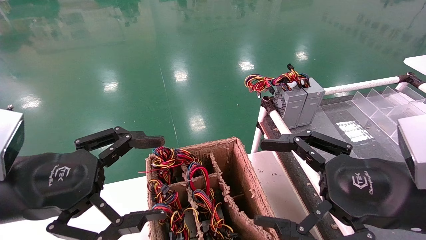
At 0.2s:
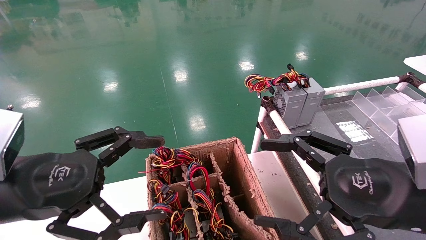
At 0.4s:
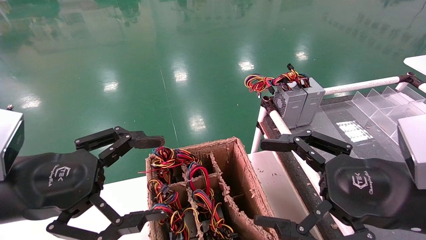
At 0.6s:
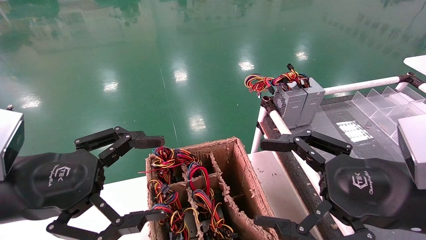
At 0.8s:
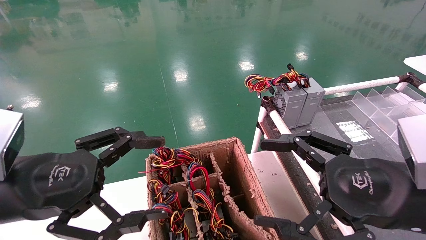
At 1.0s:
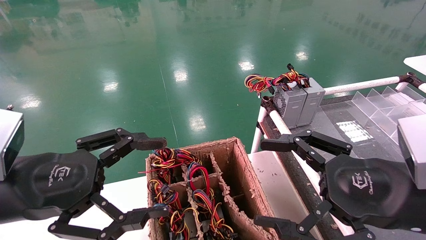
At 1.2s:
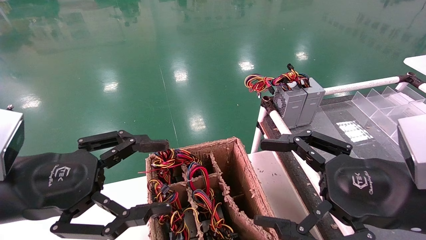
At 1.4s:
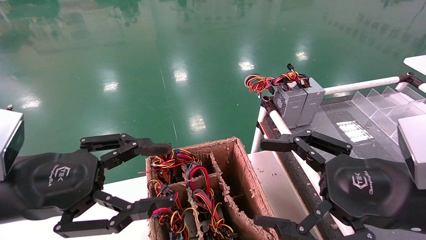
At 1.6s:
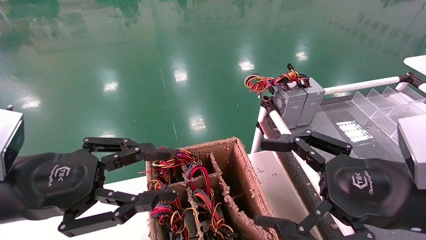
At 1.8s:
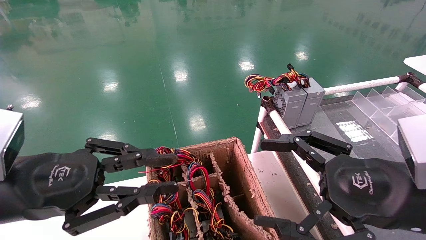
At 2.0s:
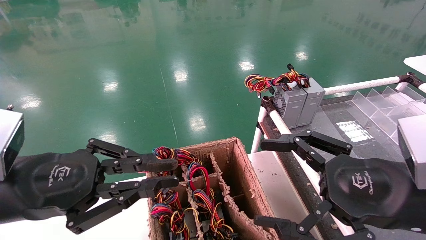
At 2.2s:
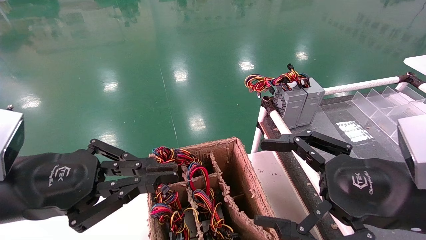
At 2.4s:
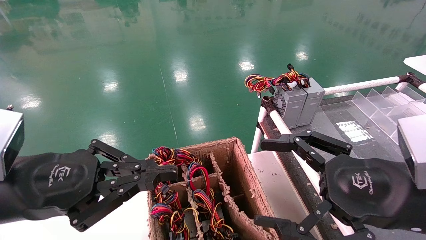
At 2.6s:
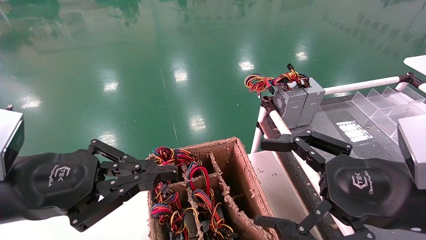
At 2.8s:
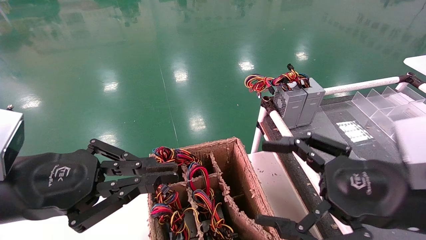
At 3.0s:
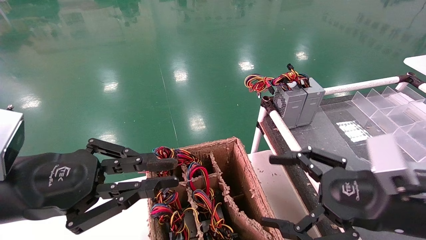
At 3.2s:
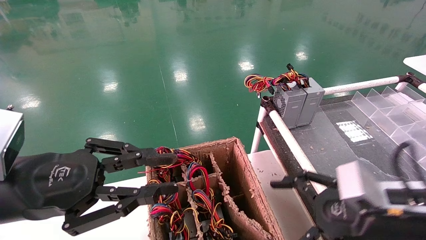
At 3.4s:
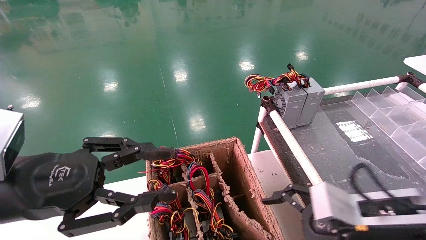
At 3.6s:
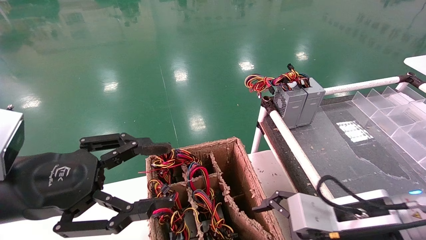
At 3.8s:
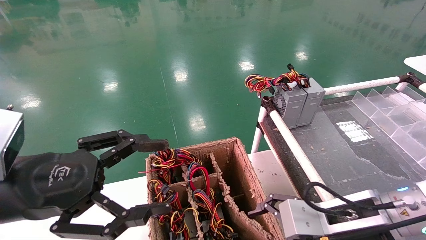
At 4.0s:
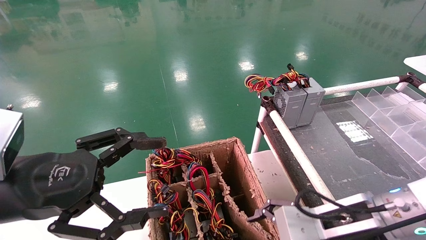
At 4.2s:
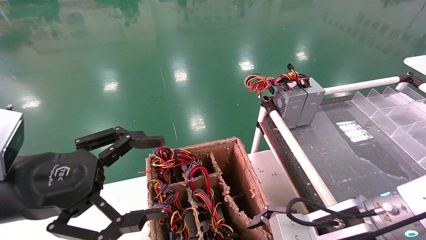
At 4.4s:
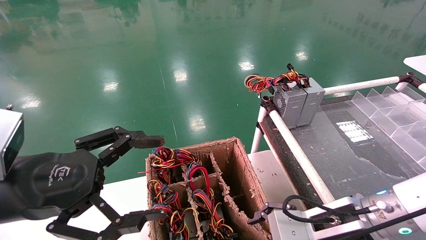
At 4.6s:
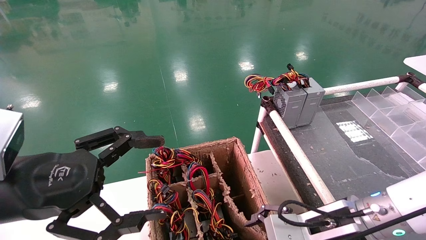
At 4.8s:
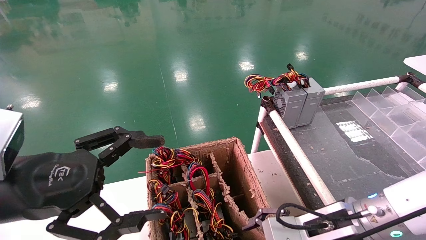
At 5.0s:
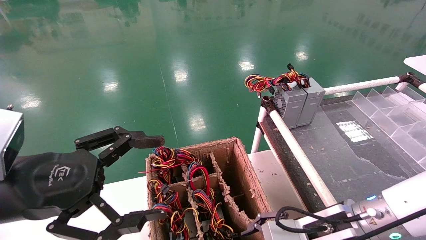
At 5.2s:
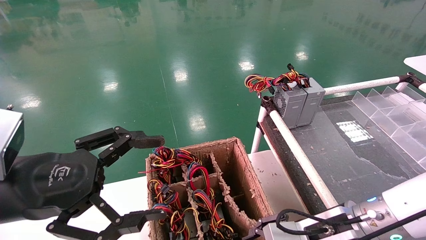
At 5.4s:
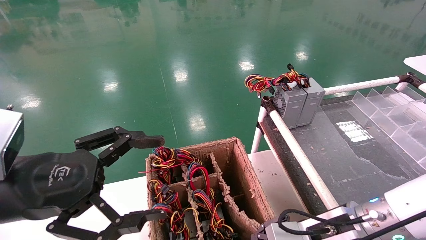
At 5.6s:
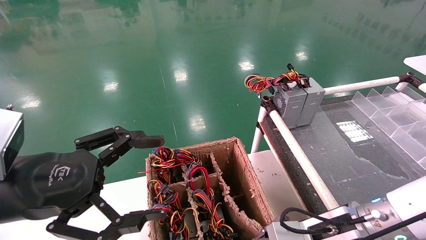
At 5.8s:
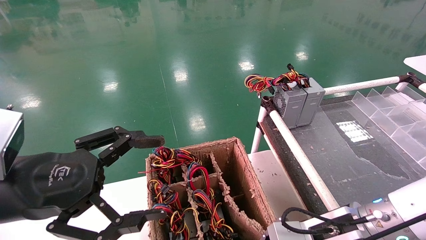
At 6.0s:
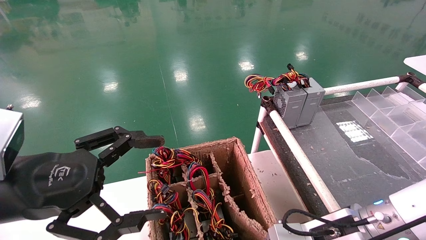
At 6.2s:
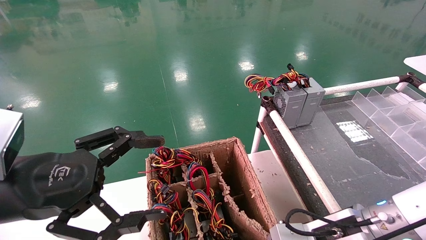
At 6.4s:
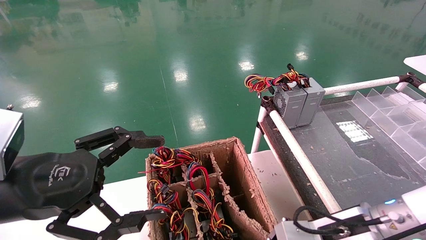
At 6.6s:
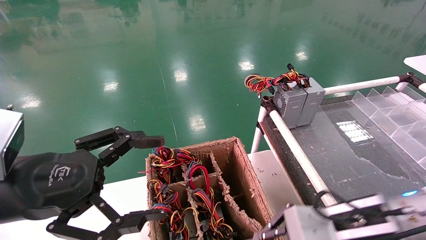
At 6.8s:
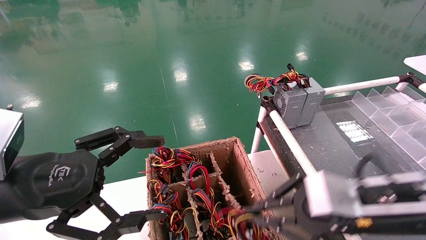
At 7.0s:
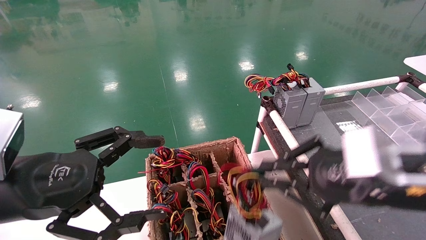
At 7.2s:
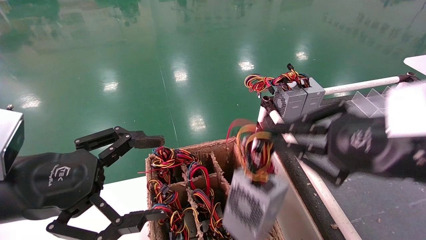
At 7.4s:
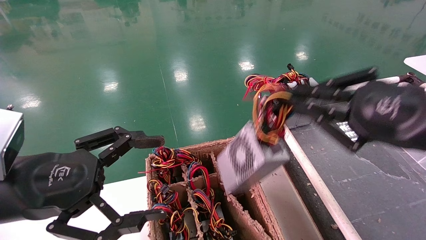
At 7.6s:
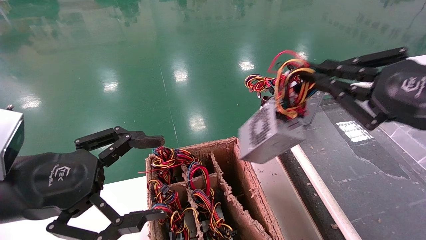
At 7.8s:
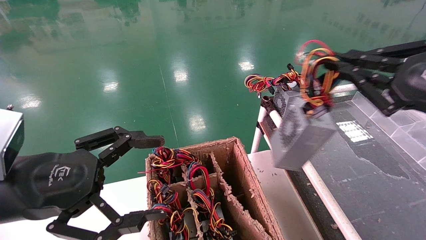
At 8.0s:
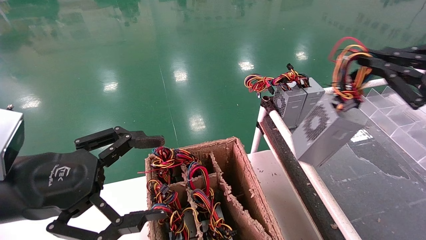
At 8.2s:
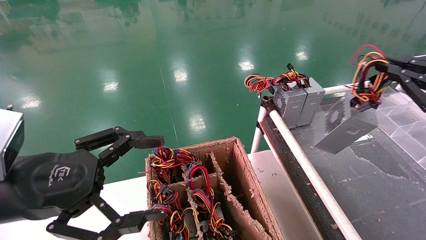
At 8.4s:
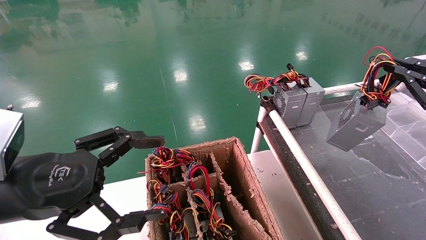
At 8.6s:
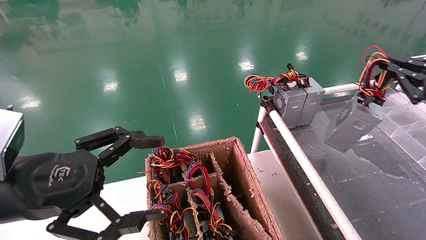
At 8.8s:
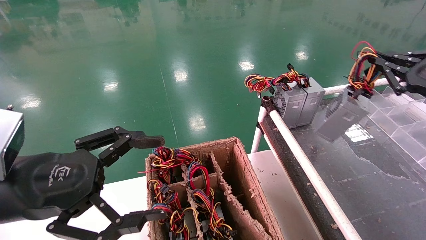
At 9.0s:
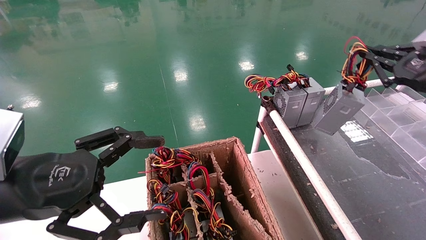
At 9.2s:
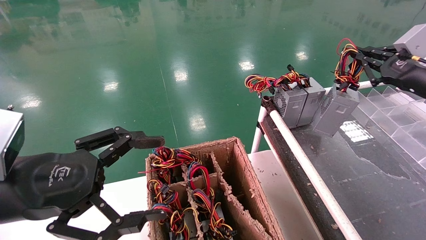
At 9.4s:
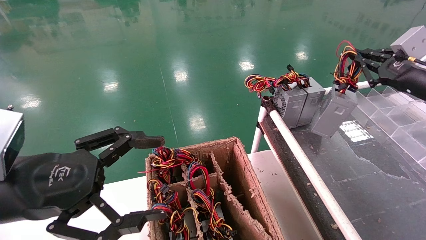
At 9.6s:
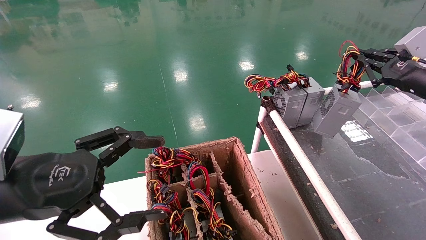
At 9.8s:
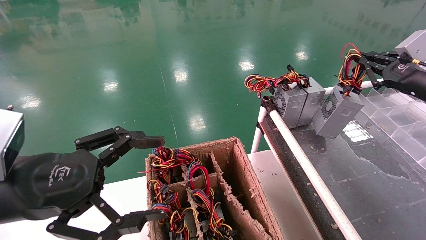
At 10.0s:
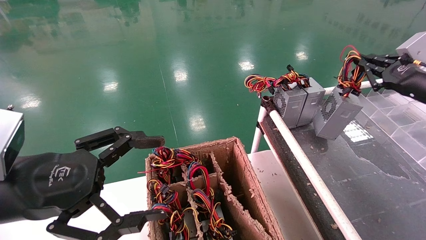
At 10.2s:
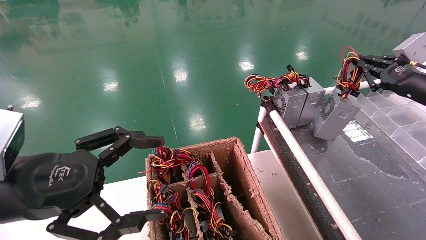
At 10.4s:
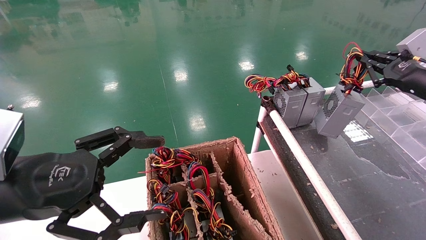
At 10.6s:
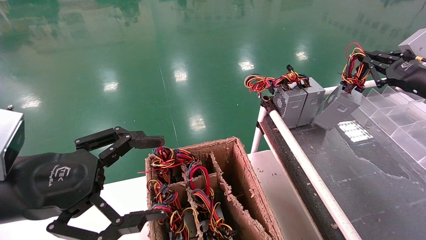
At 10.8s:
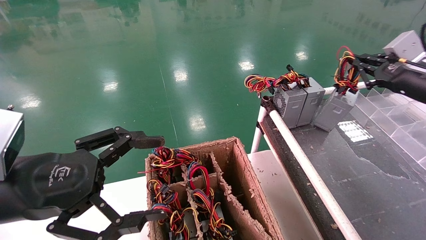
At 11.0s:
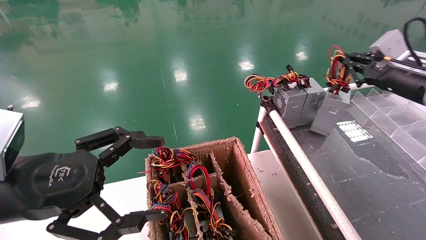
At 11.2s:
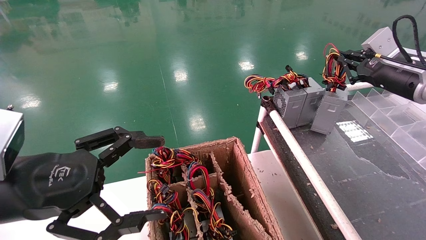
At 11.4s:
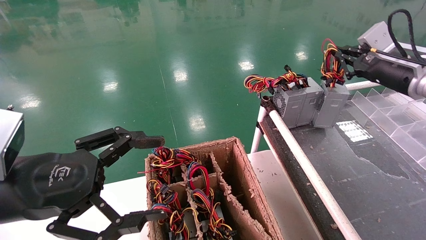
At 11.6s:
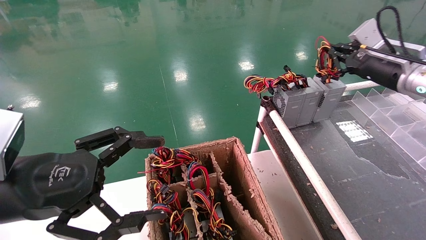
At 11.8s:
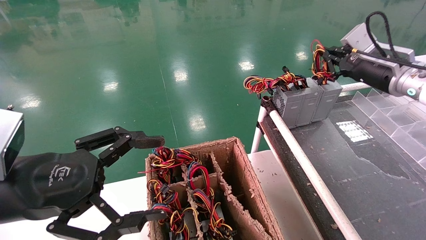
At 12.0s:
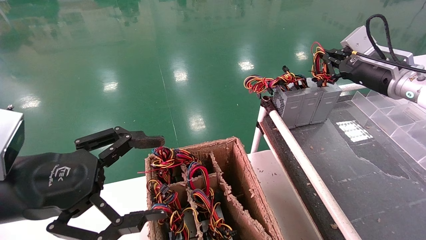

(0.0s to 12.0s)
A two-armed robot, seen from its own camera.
Step, 2.2s - 6.0s: Grab and lift the power supply from the large box.
0.0s - 1.6s: The left gripper closes its fingers.
1.6s - 3.0s: The left gripper closes up.
3.0s - 4.4s: The right gripper moves to the left and downward, some 10 cm; the left gripper opens its fingers.
4.4s - 6.0s: The right gripper closes up.
6.0s - 7.6s: The right gripper shifts some 20 cm upward and to the right.
7.6s - 9.0s: The right gripper travels forward and to the right by about 20 cm.
9.0s - 10.4s: The grippers move only a little.
10.4s - 12.0s: The right gripper shifts roughly 10 cm to the left and forward.

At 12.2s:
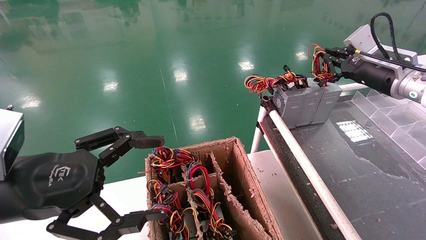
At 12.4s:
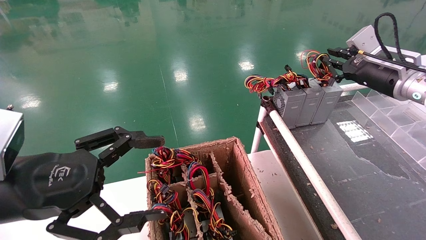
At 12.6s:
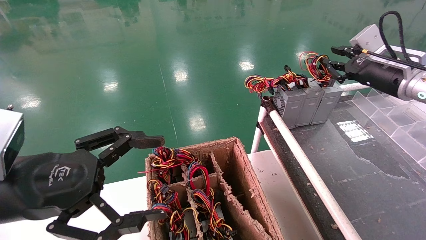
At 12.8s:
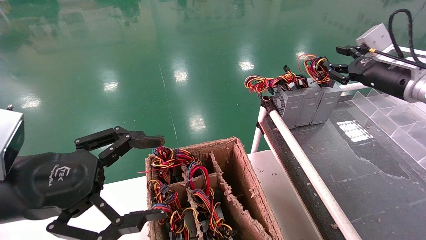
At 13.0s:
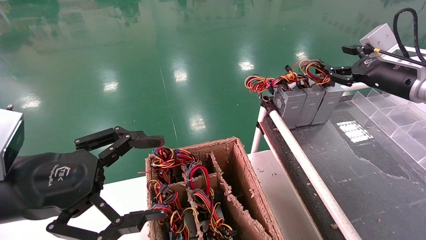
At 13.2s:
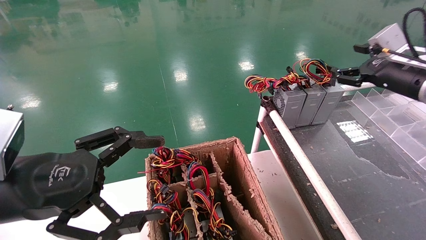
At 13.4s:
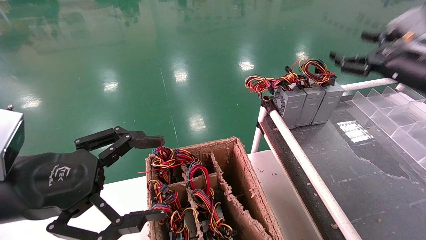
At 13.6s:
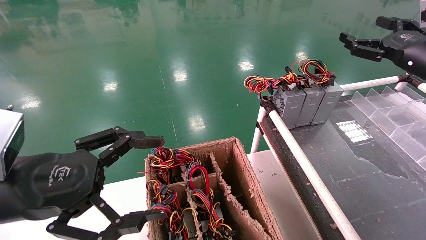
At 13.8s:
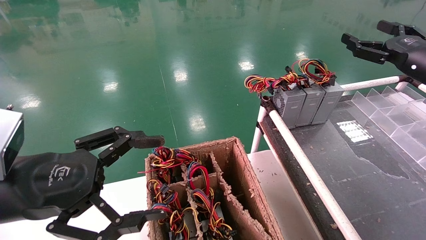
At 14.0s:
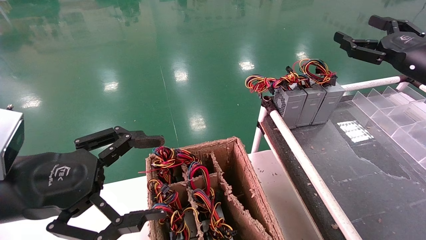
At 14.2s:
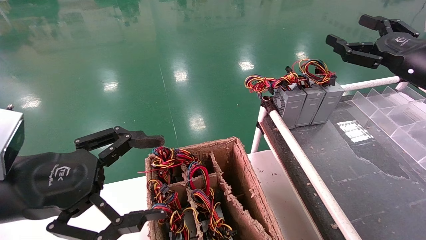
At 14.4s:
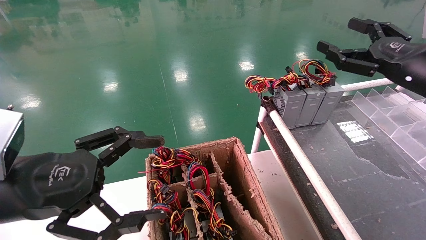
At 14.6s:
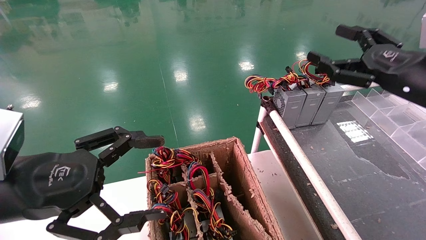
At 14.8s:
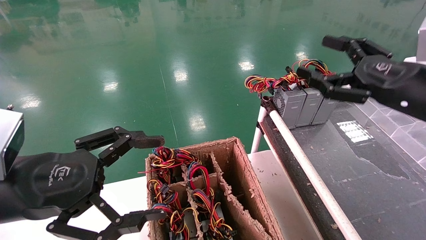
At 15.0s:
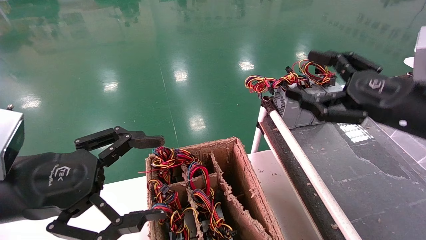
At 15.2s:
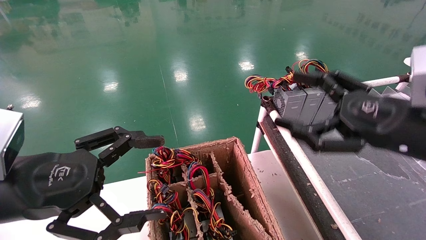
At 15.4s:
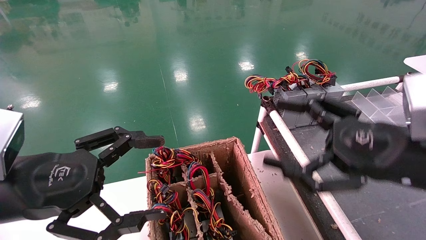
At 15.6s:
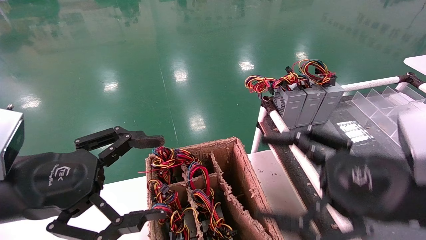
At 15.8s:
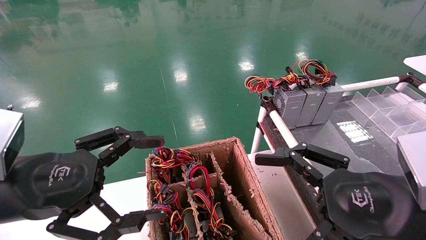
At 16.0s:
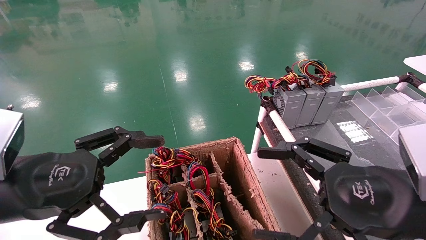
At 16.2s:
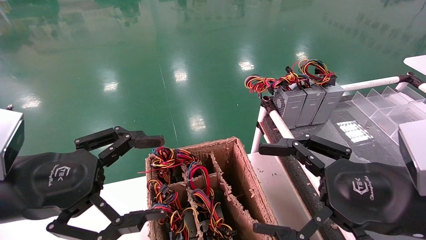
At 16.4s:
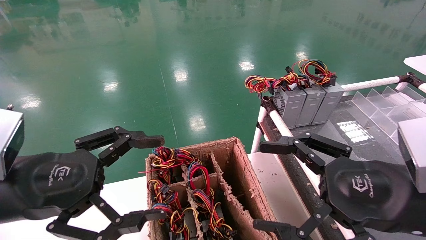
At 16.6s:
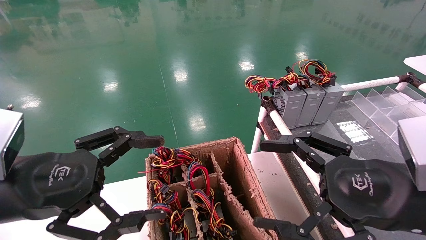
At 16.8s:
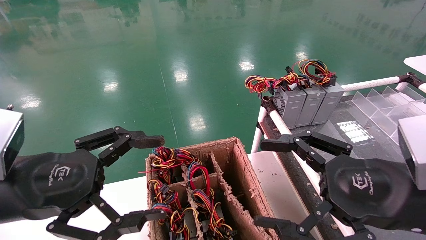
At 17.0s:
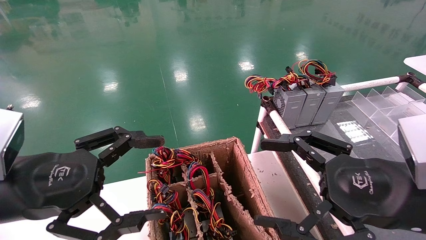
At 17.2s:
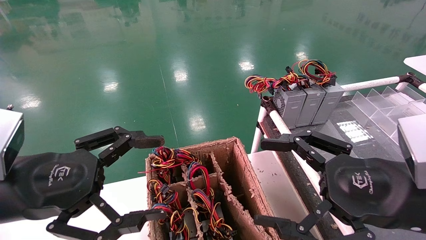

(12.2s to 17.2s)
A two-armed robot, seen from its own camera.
12.2s - 13.8s: The right gripper moves backward, some 5 cm, and opens up.
13.8s - 15.6s: The right gripper is displaced backward, to the left and downward by approximately 25 cm.
15.6s - 17.2s: The grippers move only a little.
